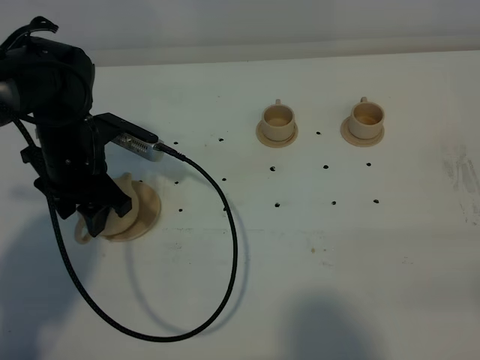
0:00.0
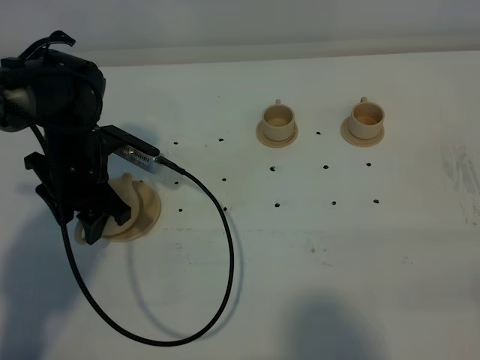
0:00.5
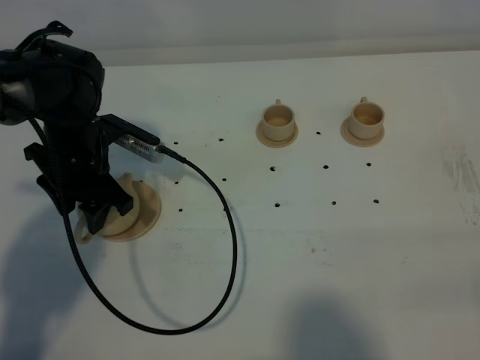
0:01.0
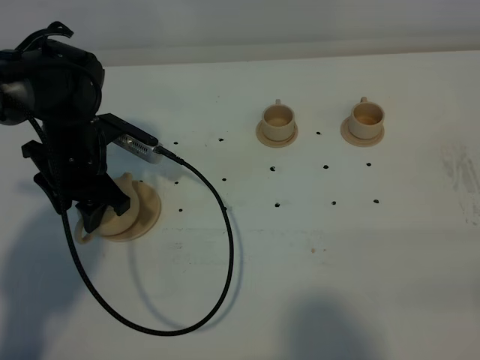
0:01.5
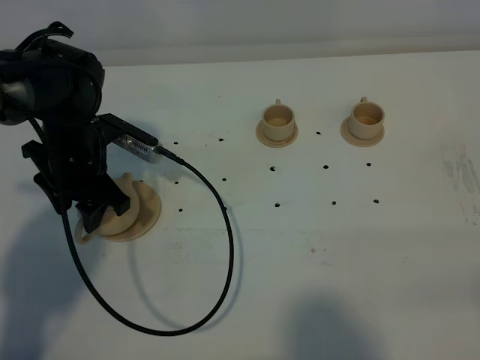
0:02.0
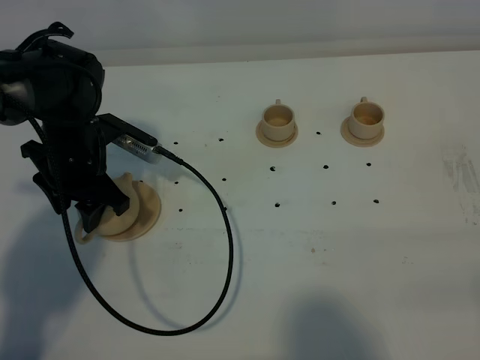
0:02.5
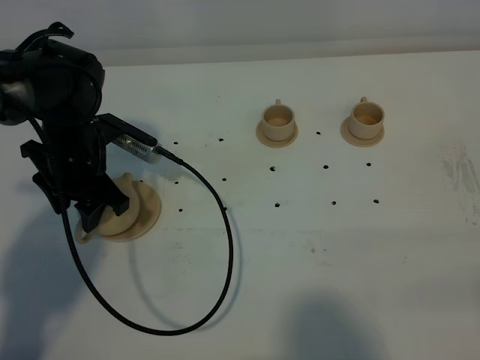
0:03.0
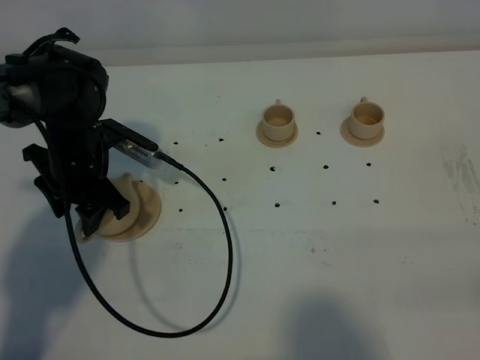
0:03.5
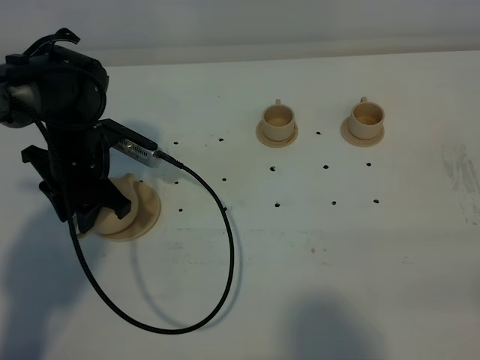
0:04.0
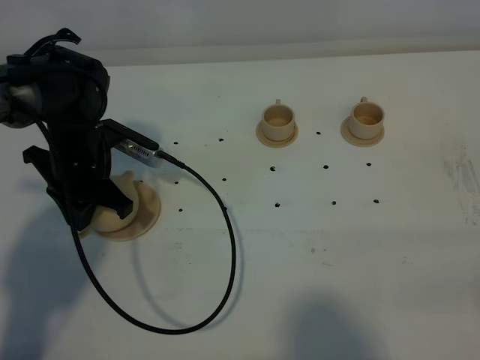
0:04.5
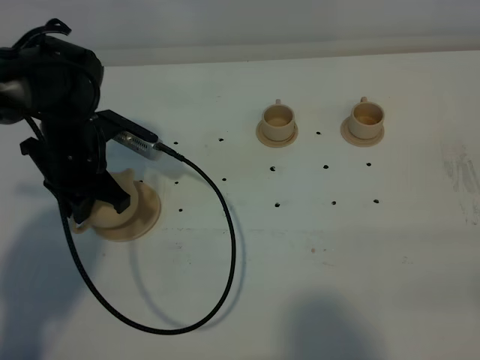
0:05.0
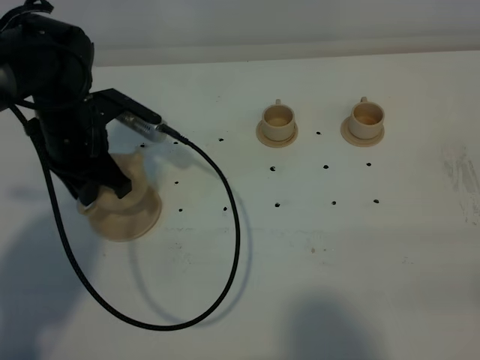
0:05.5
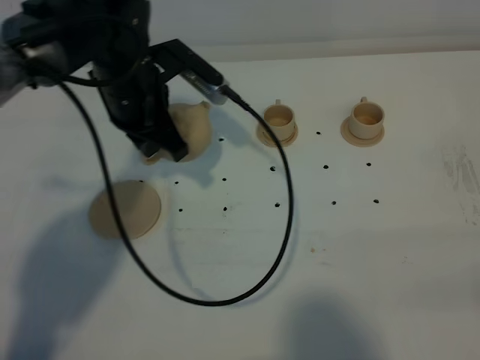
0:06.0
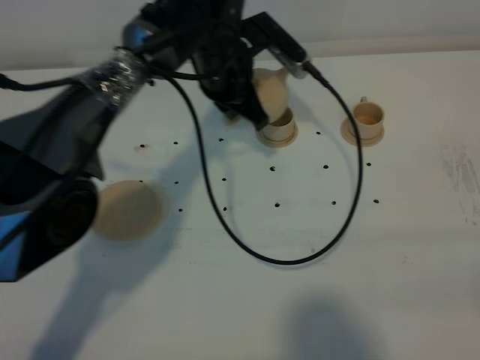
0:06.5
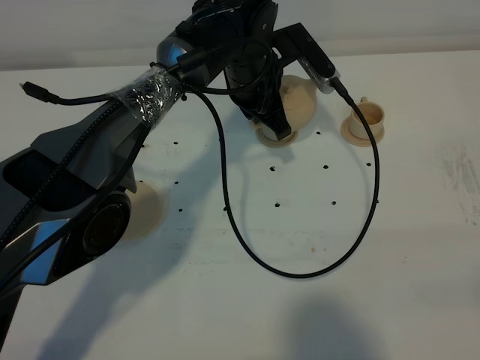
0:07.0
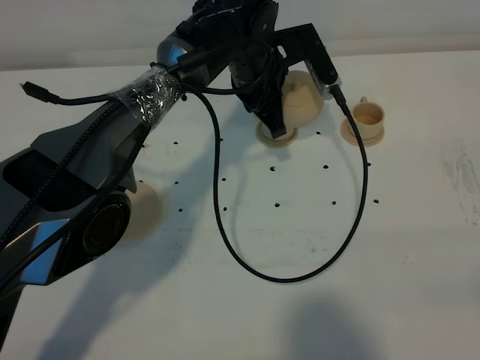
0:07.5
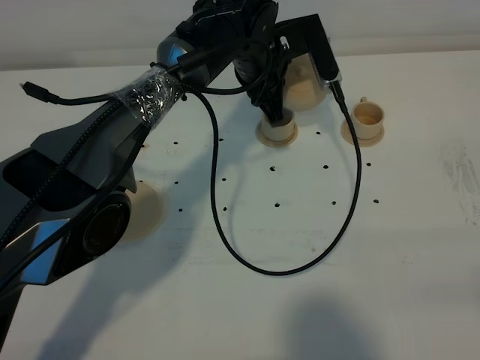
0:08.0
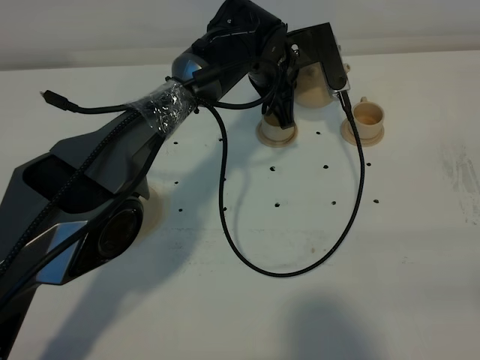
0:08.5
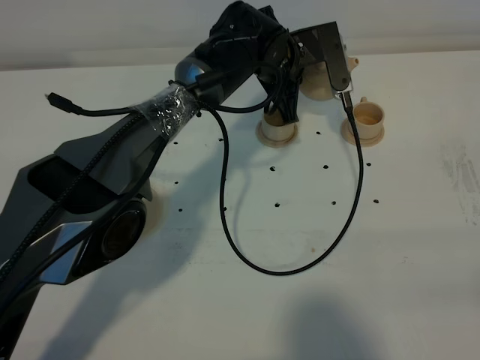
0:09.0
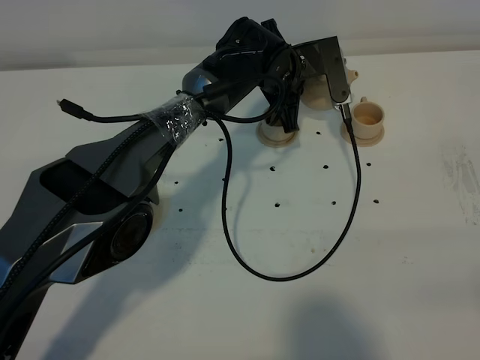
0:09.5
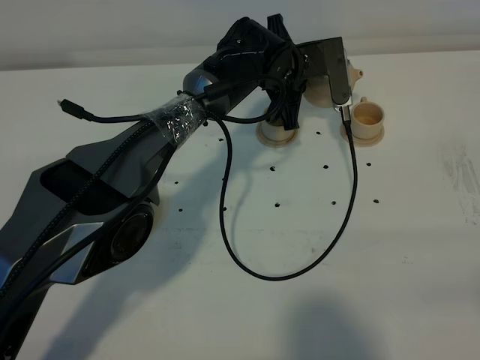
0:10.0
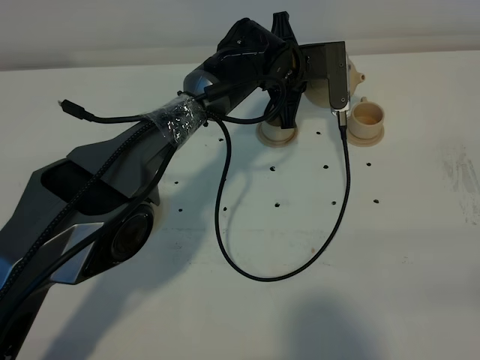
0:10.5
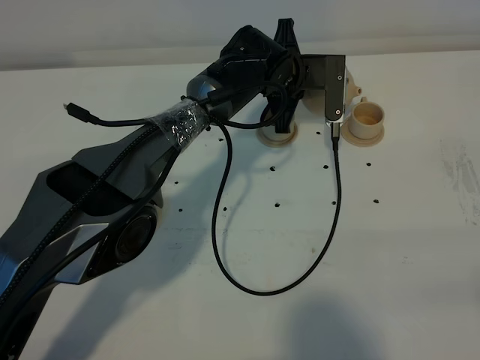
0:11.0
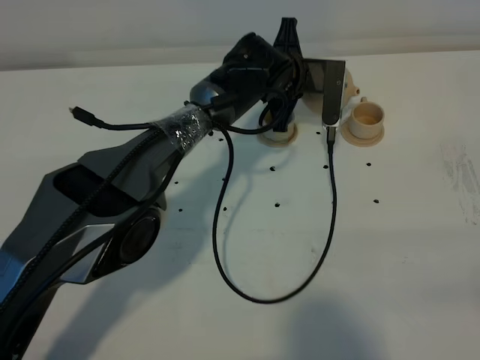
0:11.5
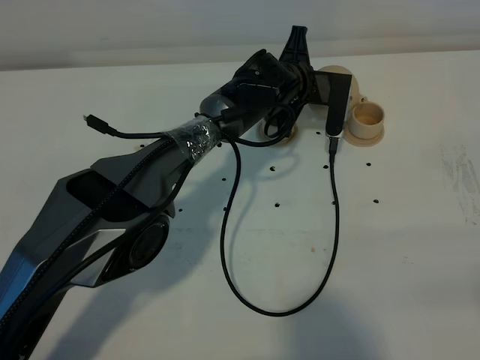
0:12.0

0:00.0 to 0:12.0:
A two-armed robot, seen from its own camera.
Task of the whole recording: grasp the brown teapot and pour the tea into the two brown teacups one by one, put the brown teapot back in its original place.
Step, 0:00.0 to 0:05.0: Pick up the teapot with the left gripper.
0:00.0 to 0:02.0: There are only small adjustments of the grippers.
0:02.0 to 0:04.0: The left gripper closes up.
0:04.0 to 0:06.0: The left gripper goes some 10 cm to the right and upward, and closes.
0:06.0 to 0:08.0: The left gripper heads to the right and forward, covering approximately 15 cm.
0:08.0 to 0:10.0: The left gripper changes place by approximately 5 cm.

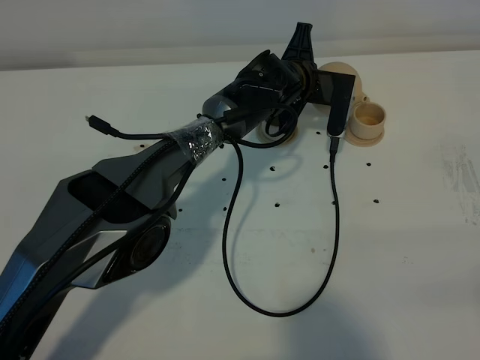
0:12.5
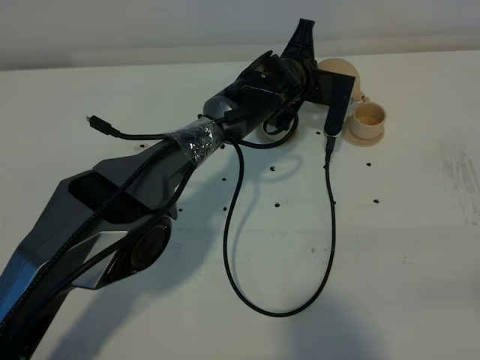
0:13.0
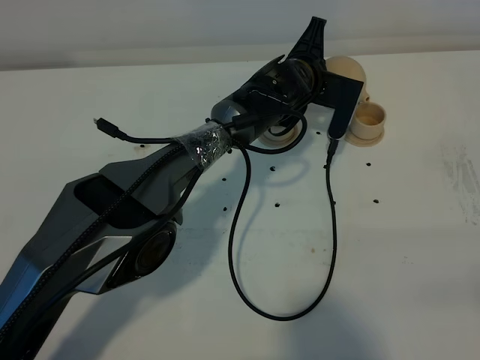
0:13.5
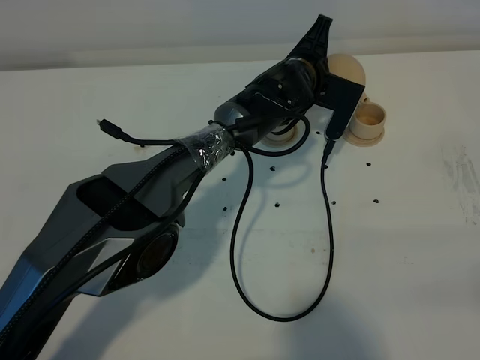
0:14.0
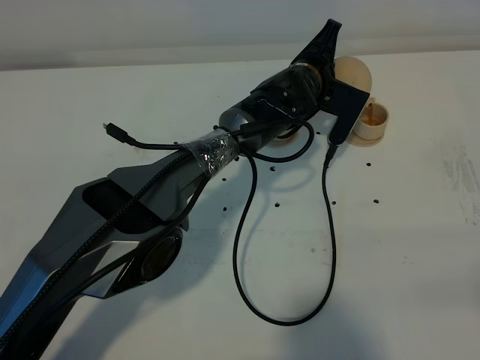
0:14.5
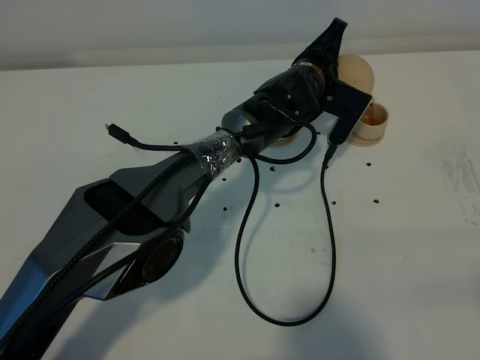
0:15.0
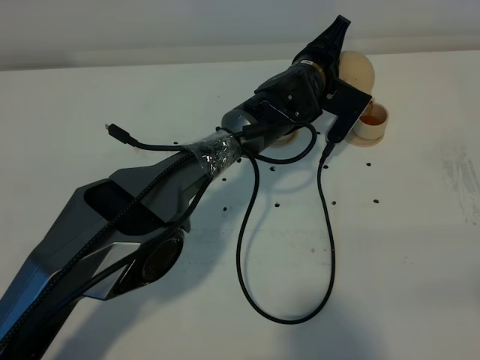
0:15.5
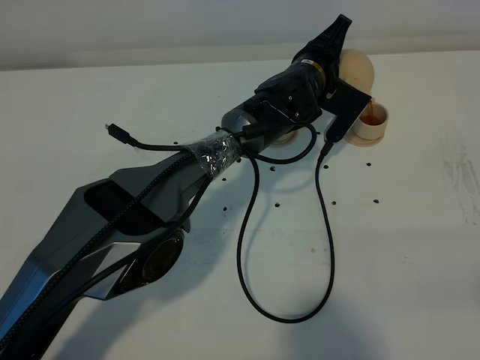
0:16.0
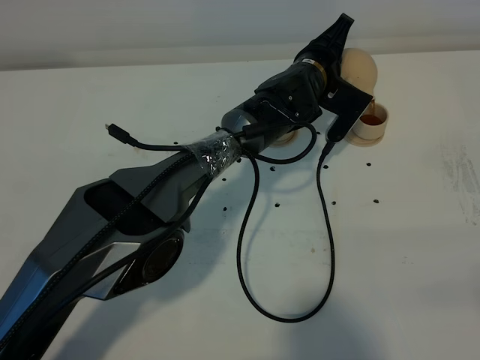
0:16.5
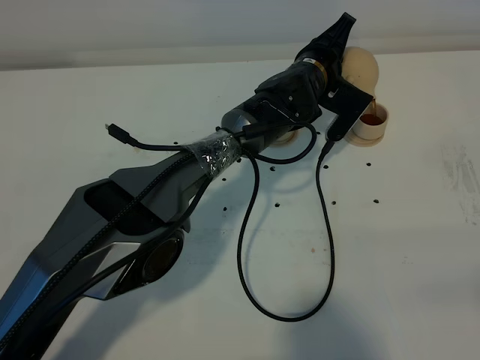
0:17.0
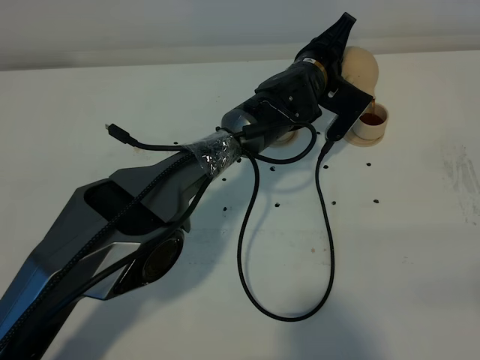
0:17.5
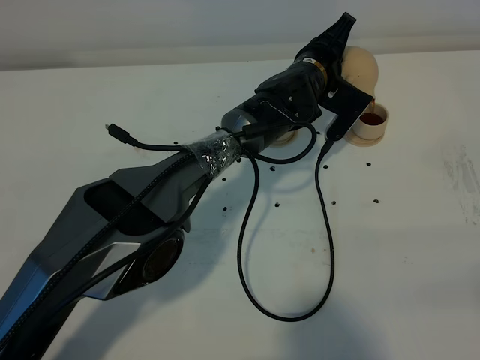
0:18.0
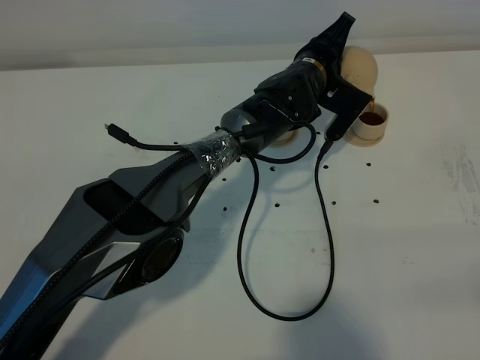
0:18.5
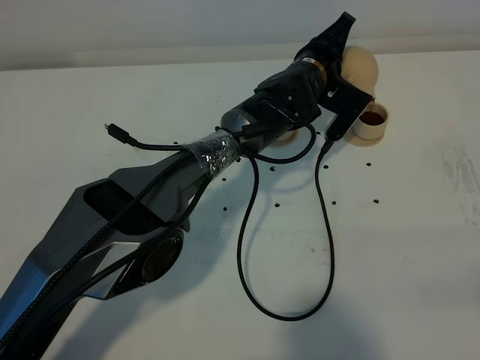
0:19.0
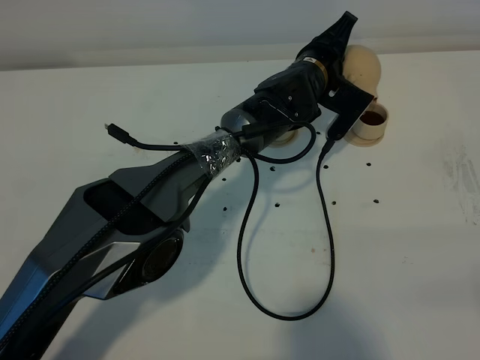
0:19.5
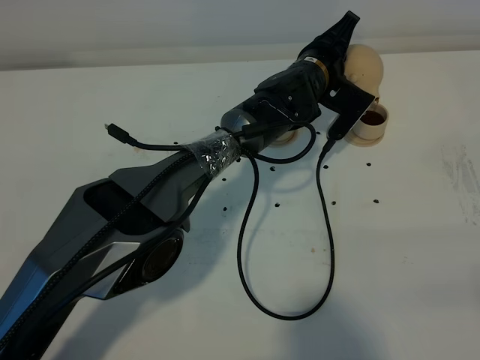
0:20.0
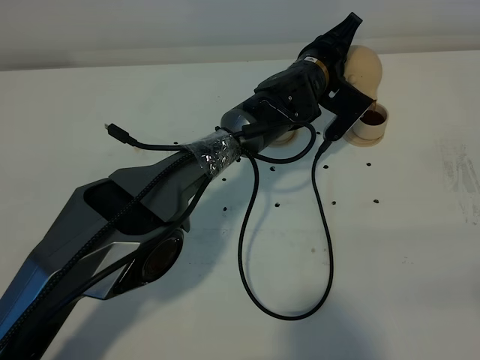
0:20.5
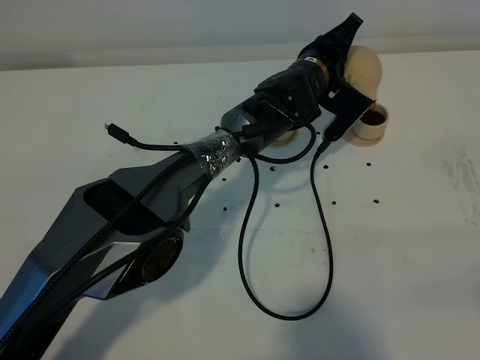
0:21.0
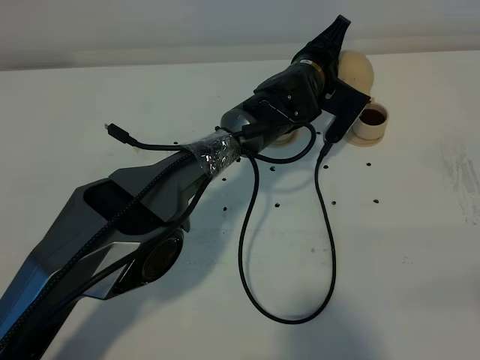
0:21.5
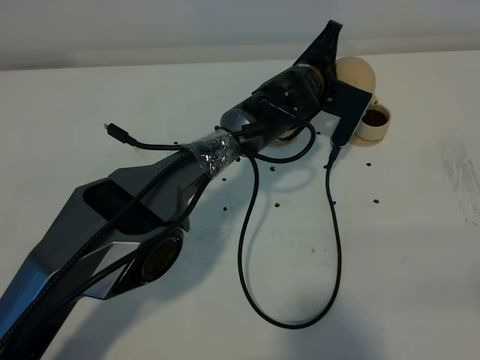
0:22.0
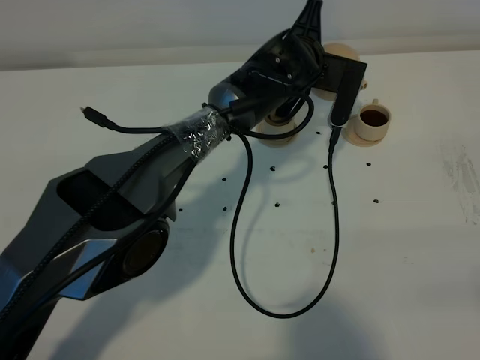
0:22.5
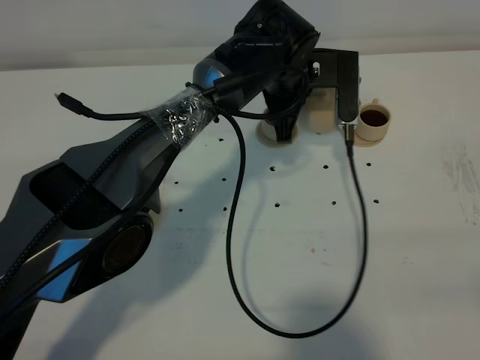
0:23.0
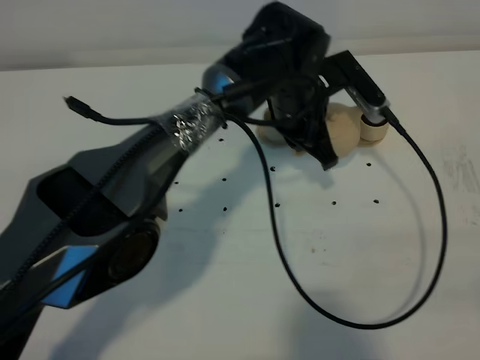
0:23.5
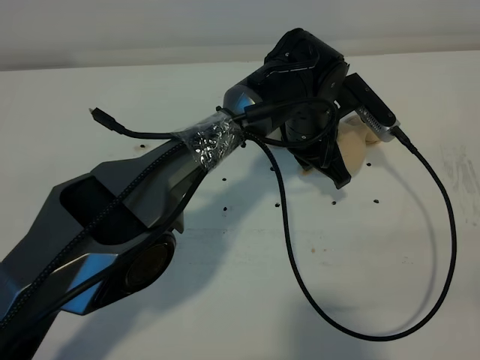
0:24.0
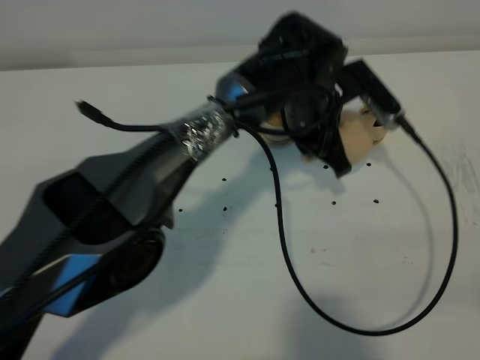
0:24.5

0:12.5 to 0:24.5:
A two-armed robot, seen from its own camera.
Task of the whole recording: grasp the brown teapot and pour the tea into the two brown teacups one by one, put the brown teapot back in its original place.
Step, 0:12.5 to 0:22.0: Pour tea into the teacup with the left gripper.
0:12.5 to 0:14.5: The grippers stay close to where they were, moving slightly.
0:14.5 to 0:16.5: The grippers move only a little.
0:16.5 to 0:18.5: The two grippers keep their place.
0:18.5 to 0:20.5: Neither gripper changes place.
0:22.5 to 0:24.5: The left gripper shifts roughly 5 cm backward.

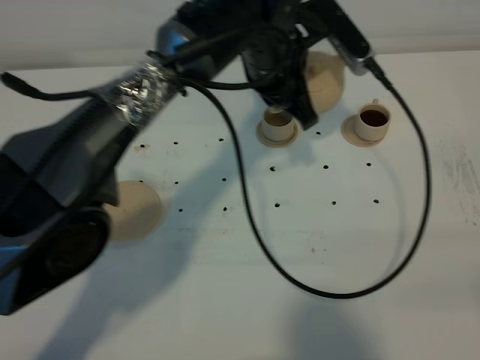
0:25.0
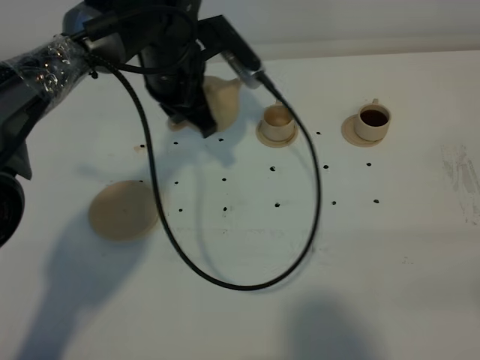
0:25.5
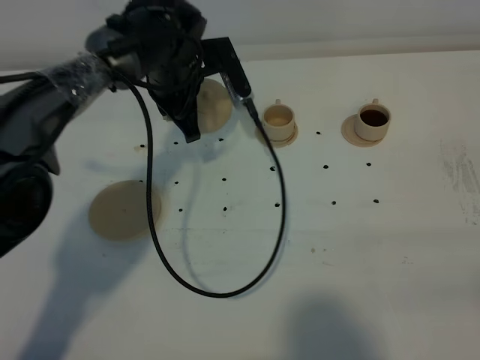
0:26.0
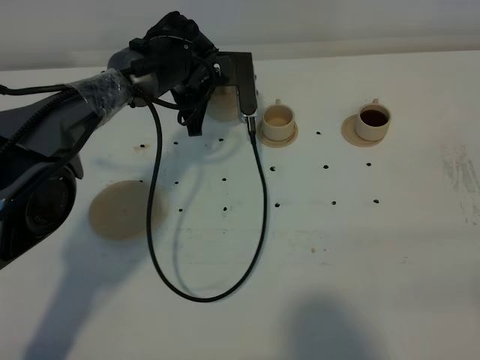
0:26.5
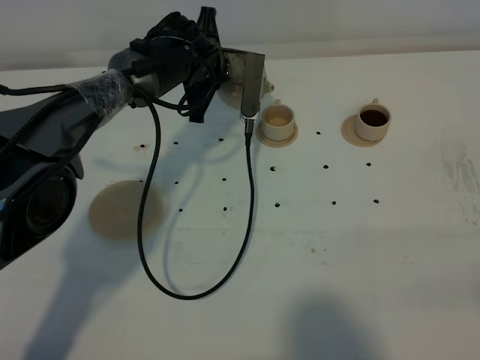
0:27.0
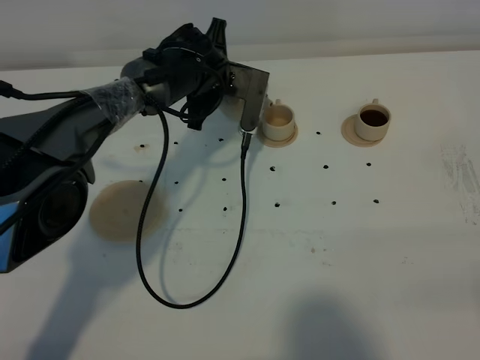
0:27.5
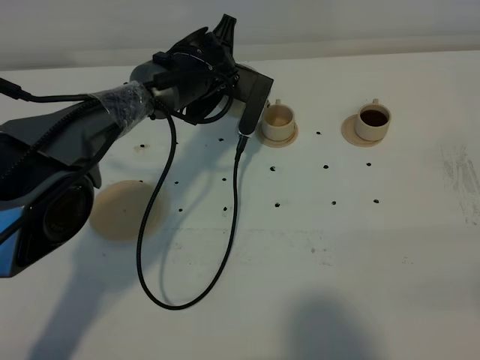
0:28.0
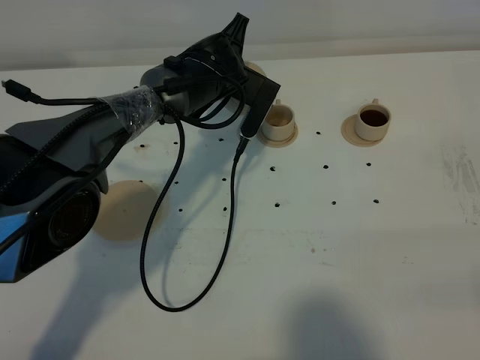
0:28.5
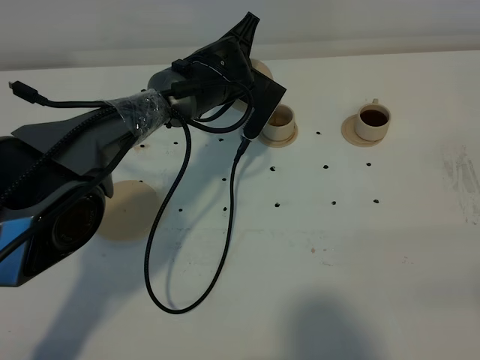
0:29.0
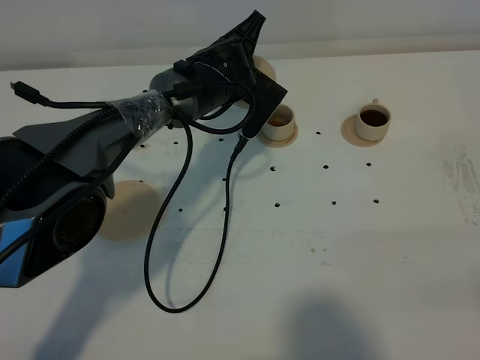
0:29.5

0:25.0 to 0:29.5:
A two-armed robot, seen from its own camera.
Task of the whole recording: grasp the brown teapot and pour the tea into the two brown teacups one by one, put the brown teapot back in its original place.
0:25.0 to 0:27.0: The left gripper is displaced downward, forward and to the left by roughly 15 cm.
